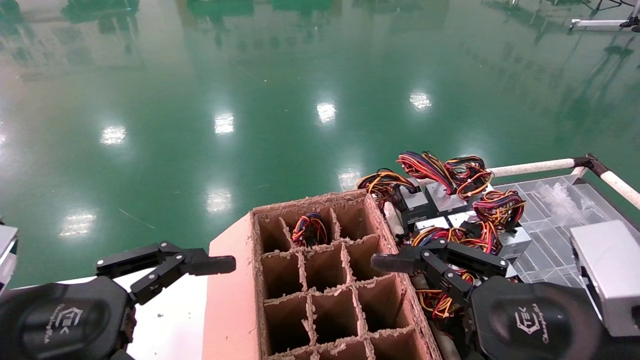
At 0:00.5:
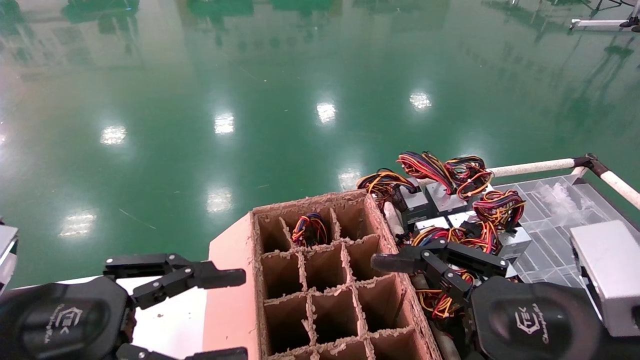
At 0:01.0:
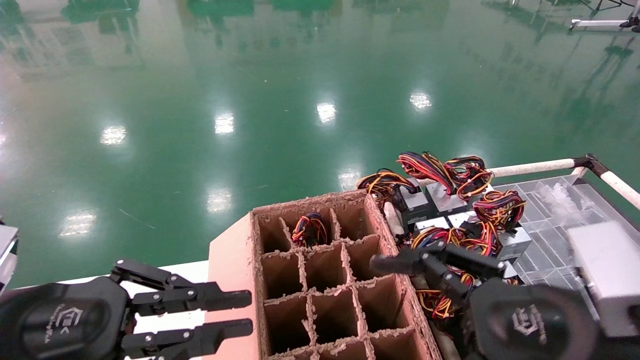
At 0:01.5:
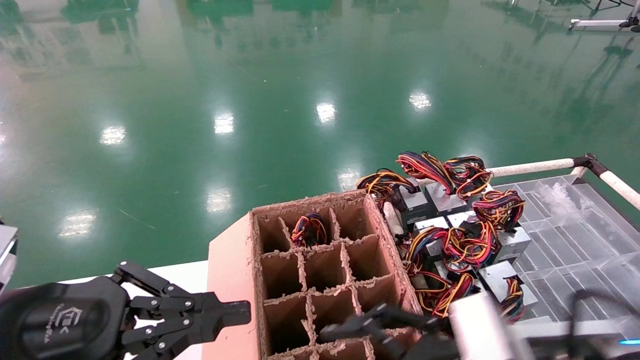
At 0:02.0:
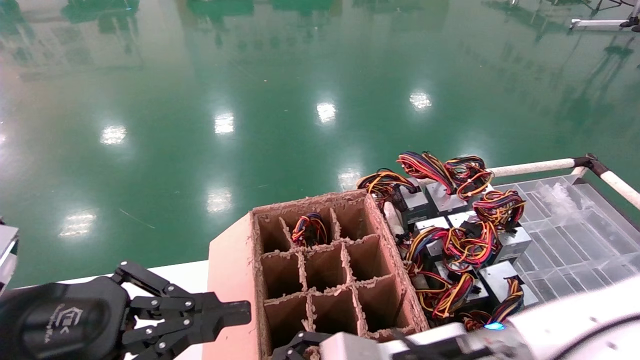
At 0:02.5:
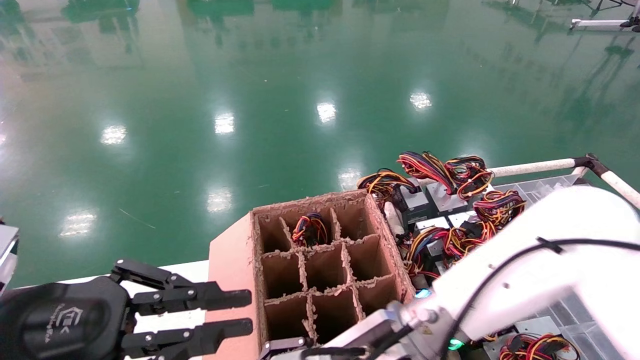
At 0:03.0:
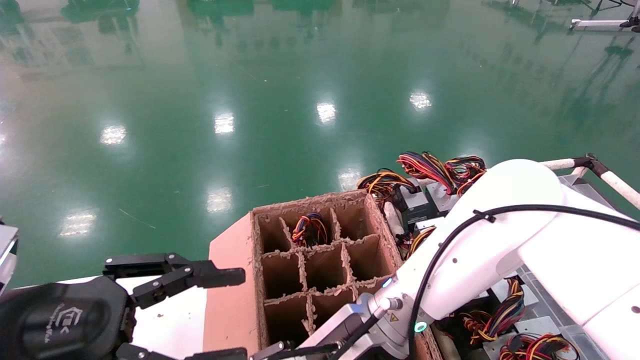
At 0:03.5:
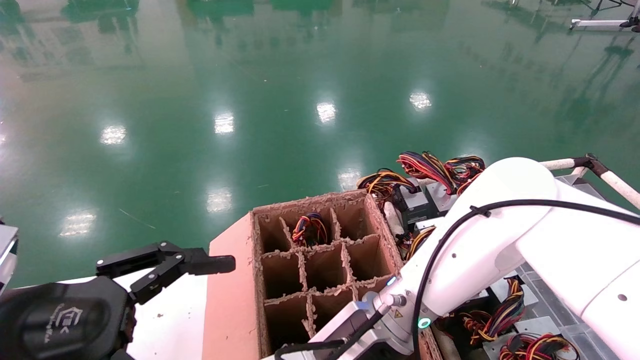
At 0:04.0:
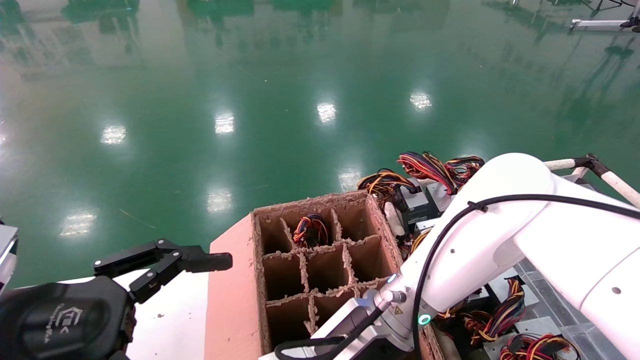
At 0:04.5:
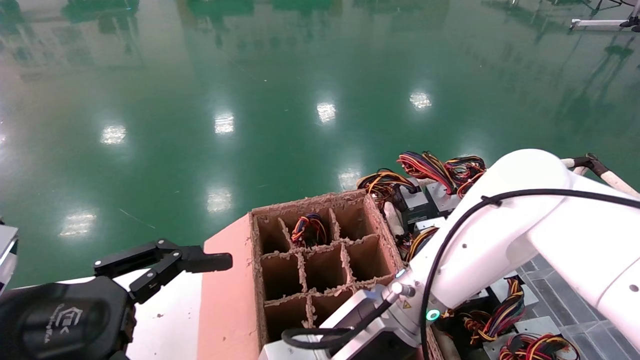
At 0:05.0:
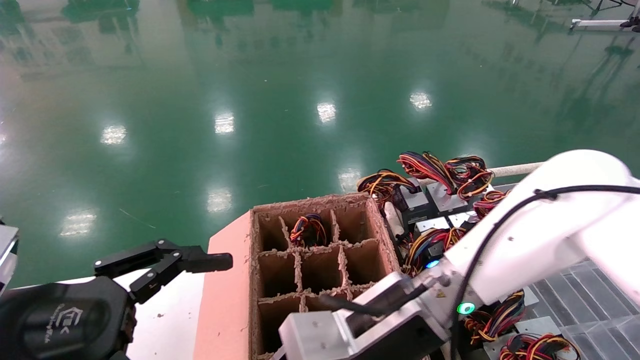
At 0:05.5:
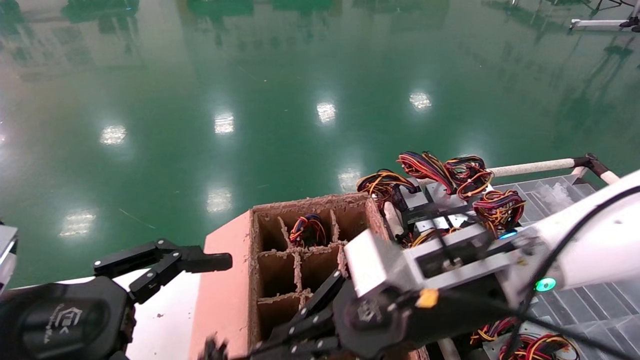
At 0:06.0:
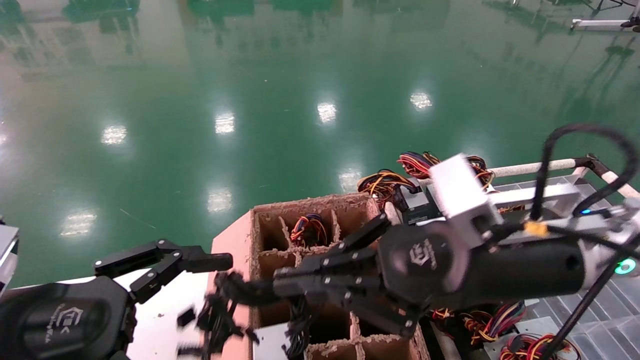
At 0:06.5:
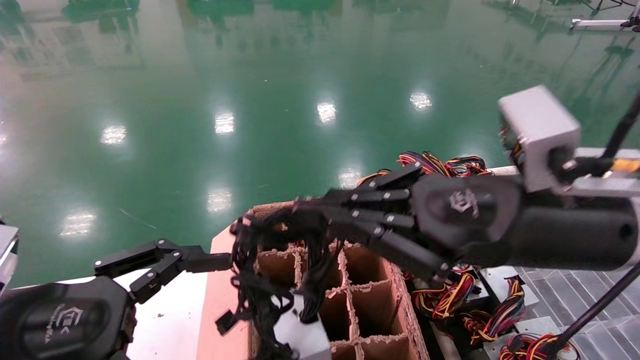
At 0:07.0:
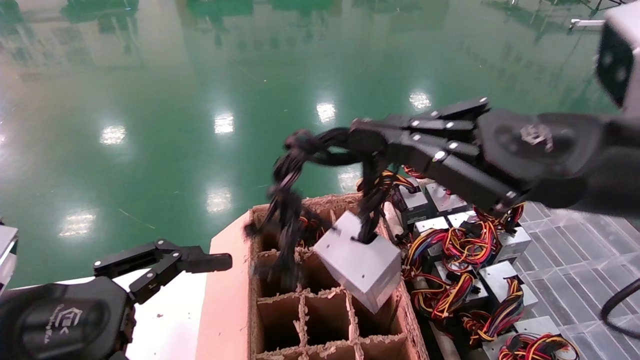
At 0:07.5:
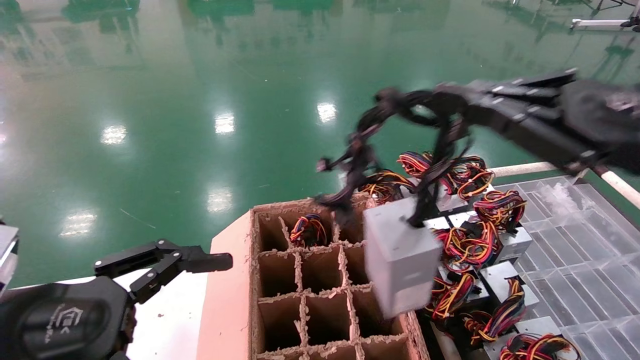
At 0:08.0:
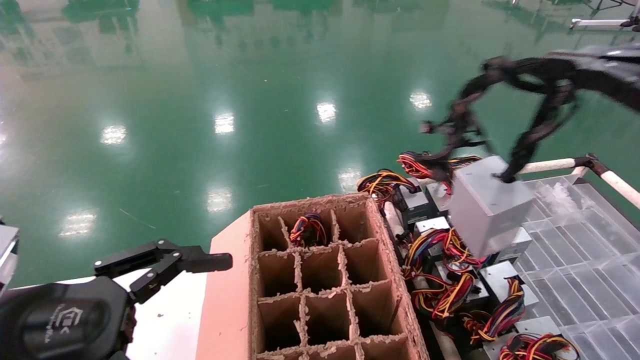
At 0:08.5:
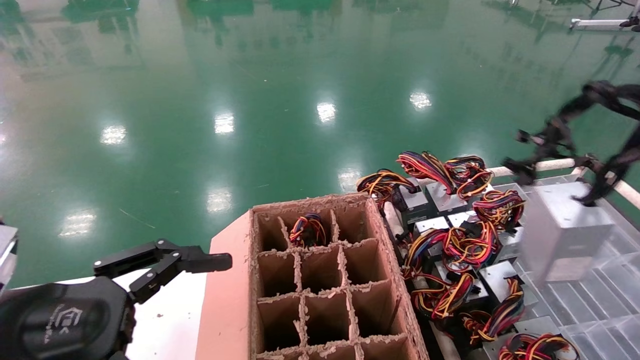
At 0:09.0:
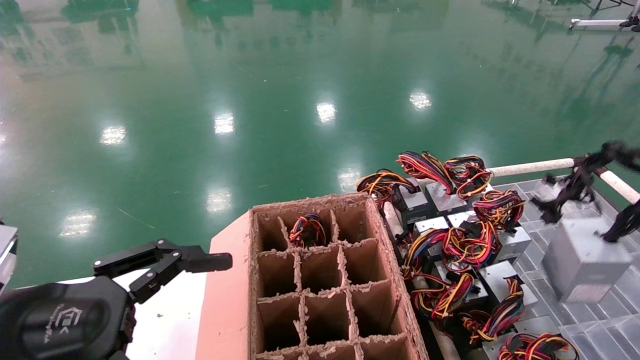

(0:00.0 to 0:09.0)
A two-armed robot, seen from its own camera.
Step, 0:01.5 - 0:04.5: Grab and lift the power supply from the large box.
0:00.0 - 0:02.0: The left gripper closes, while the right gripper shifts approximately 15 cm to the left, downward and forward.
0:02.0 - 0:04.5: The right gripper is displaced to the left by some 5 cm, and closes up; the left gripper opens up.
0:04.5 - 0:07.0: The right gripper moves to the right and upward, about 25 cm.
0:07.0 - 0:09.0: The right gripper heads to the right, covering some 25 cm.

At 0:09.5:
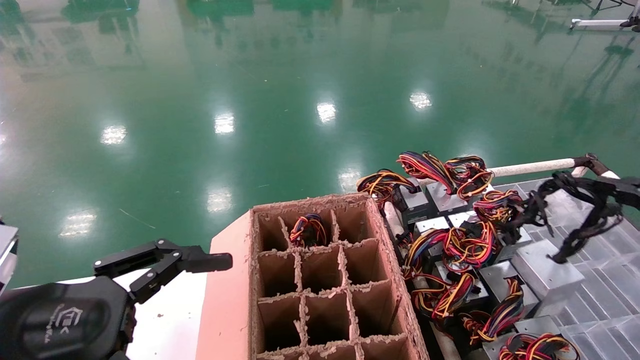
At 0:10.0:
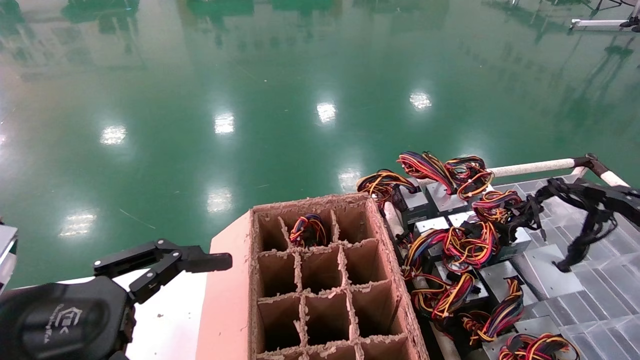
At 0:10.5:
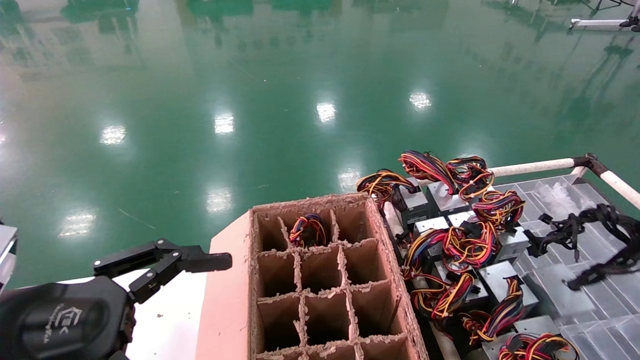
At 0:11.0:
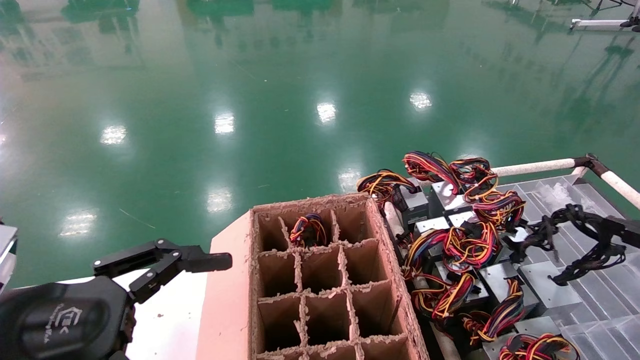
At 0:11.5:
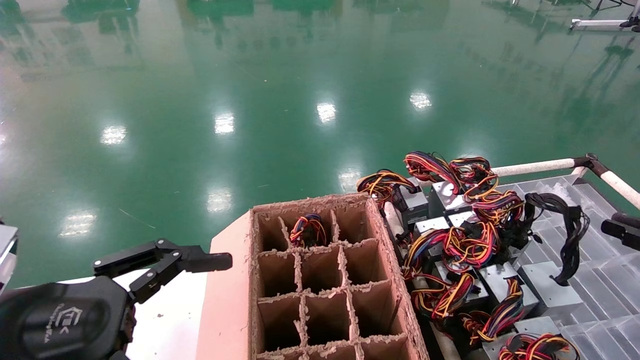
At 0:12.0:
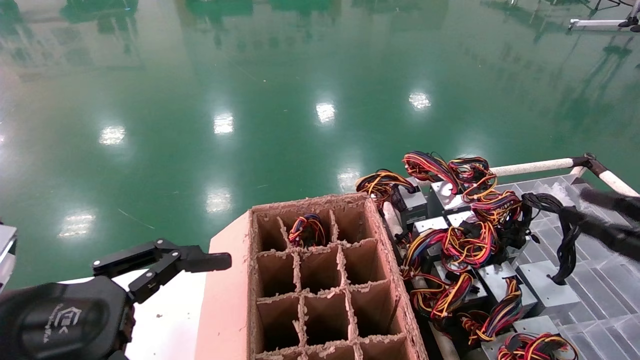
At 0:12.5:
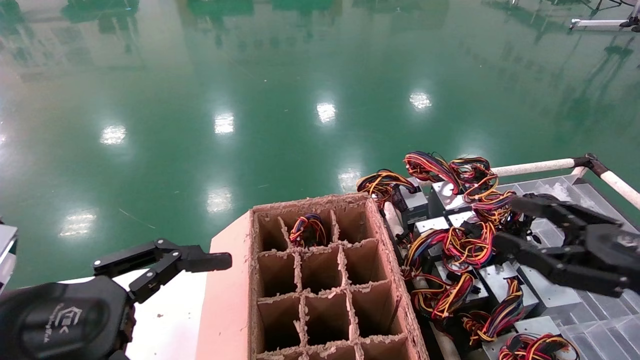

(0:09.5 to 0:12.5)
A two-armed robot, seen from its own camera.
0:09.5 - 0:11.0: The right gripper is displaced downward by about 10 cm.
0:11.0 - 0:12.5: The right gripper goes about 15 cm to the left, and opens up.
